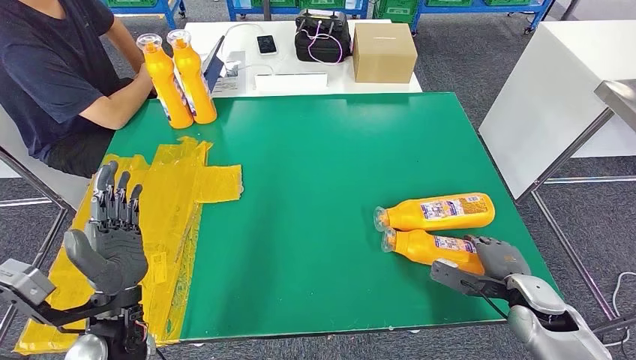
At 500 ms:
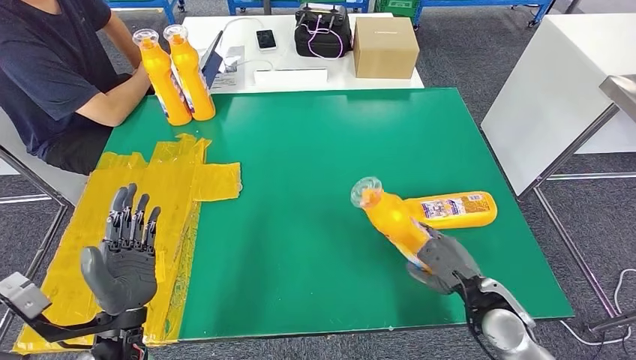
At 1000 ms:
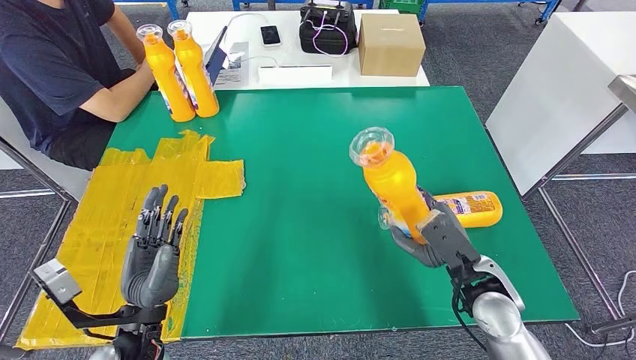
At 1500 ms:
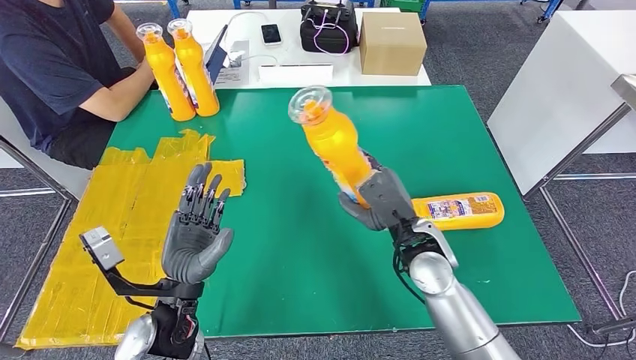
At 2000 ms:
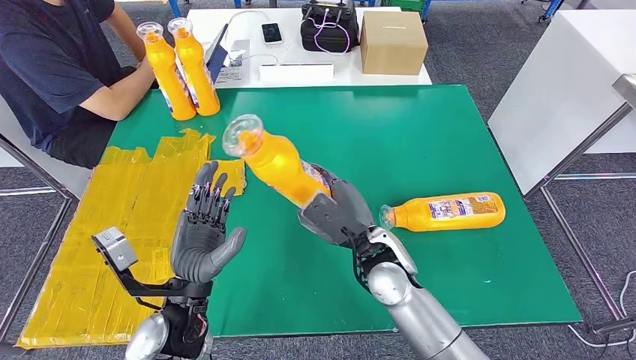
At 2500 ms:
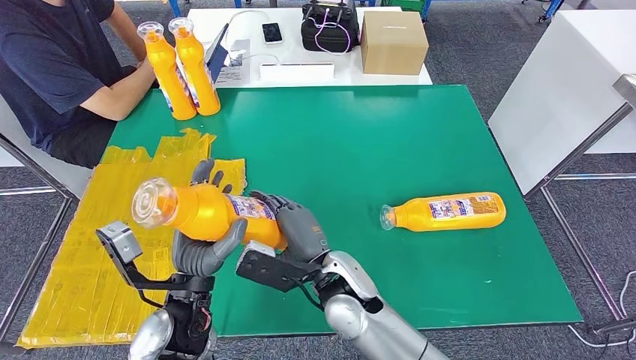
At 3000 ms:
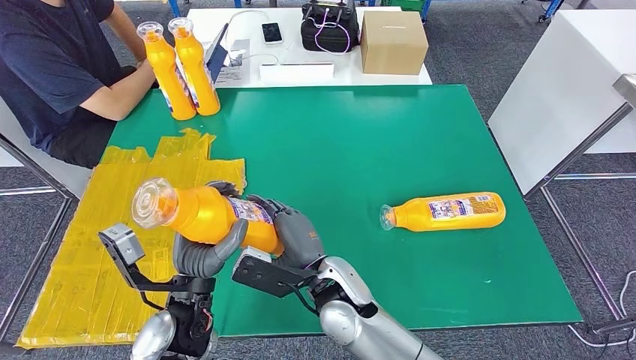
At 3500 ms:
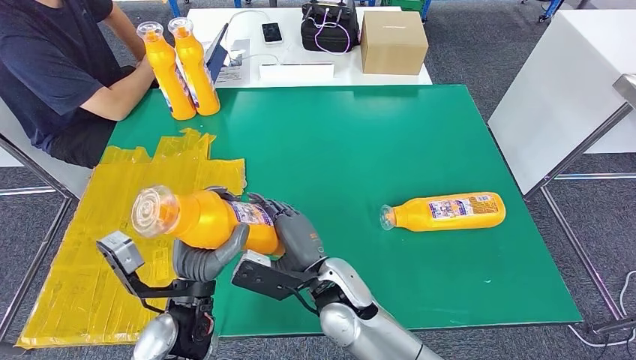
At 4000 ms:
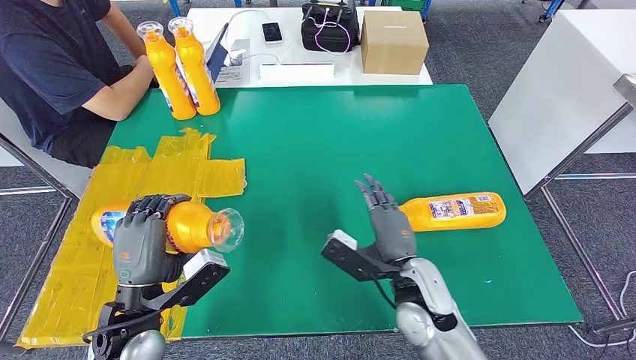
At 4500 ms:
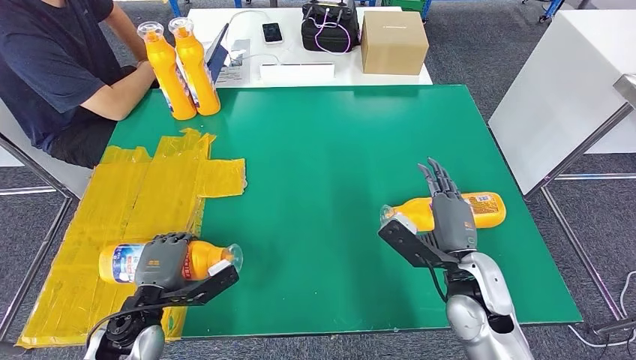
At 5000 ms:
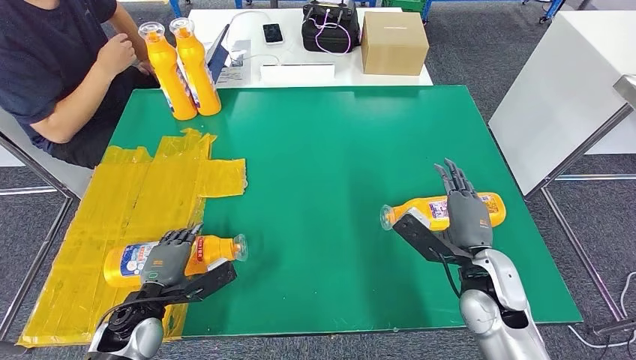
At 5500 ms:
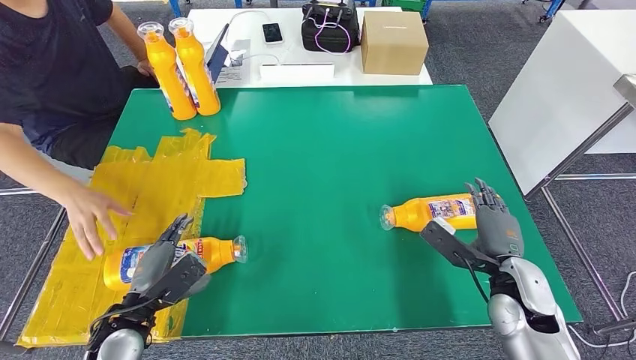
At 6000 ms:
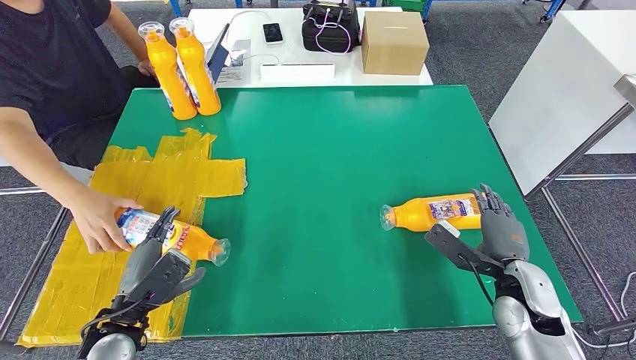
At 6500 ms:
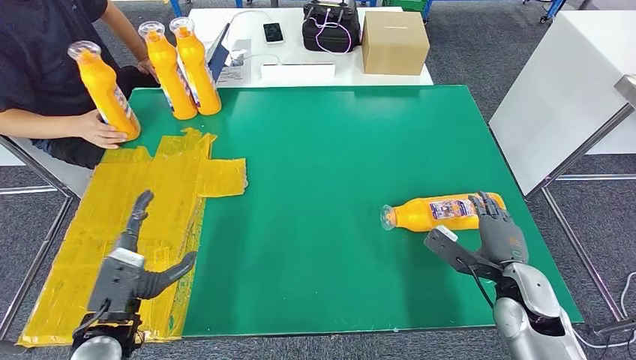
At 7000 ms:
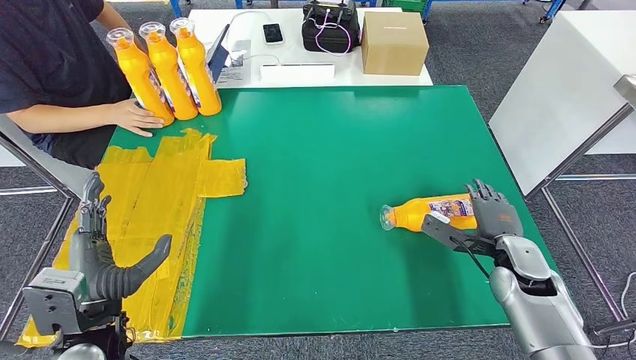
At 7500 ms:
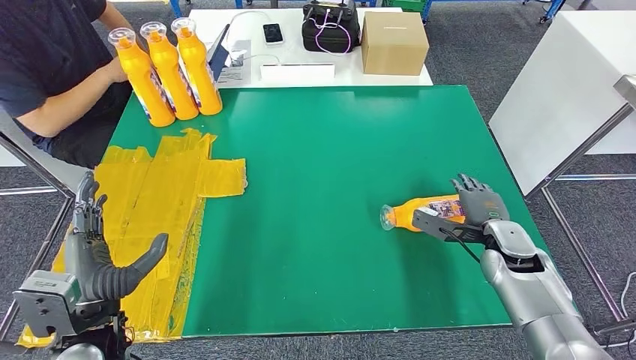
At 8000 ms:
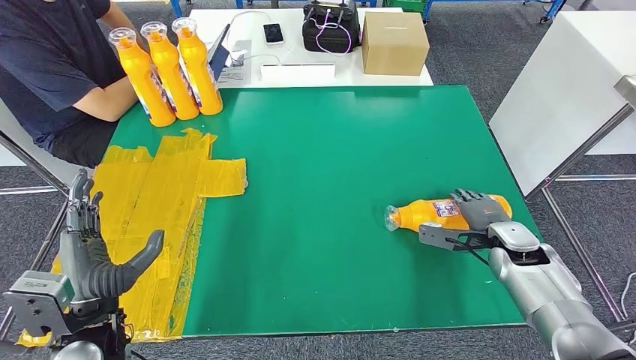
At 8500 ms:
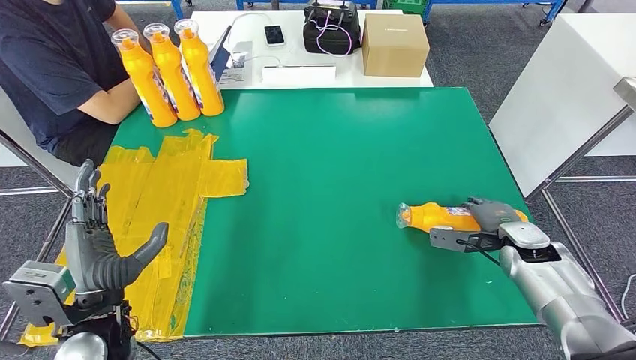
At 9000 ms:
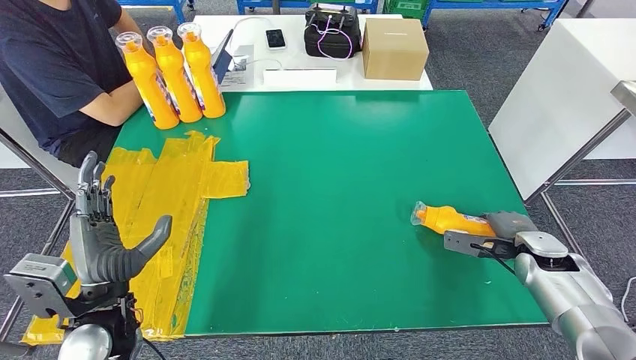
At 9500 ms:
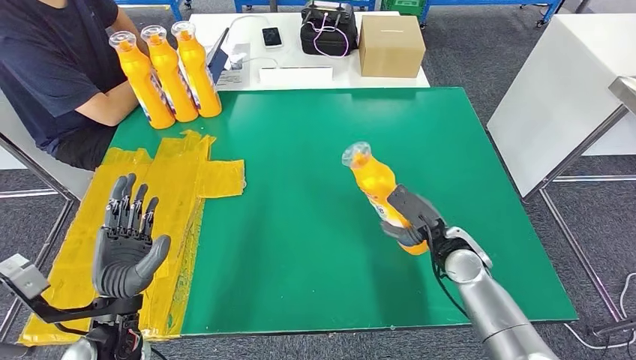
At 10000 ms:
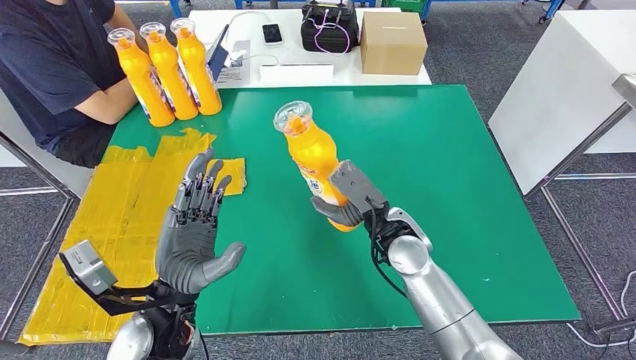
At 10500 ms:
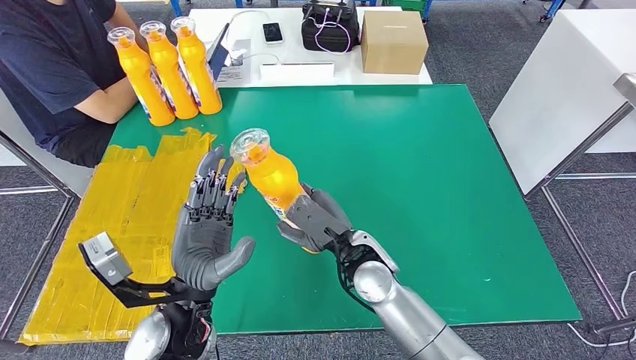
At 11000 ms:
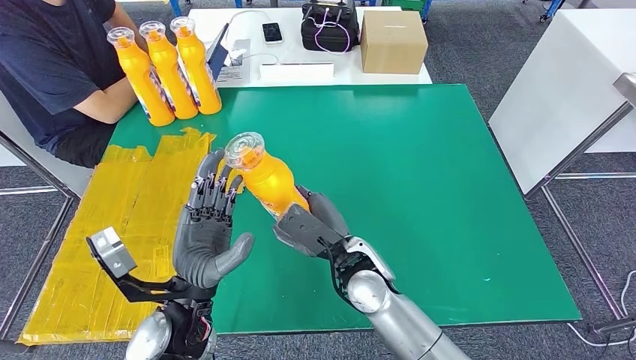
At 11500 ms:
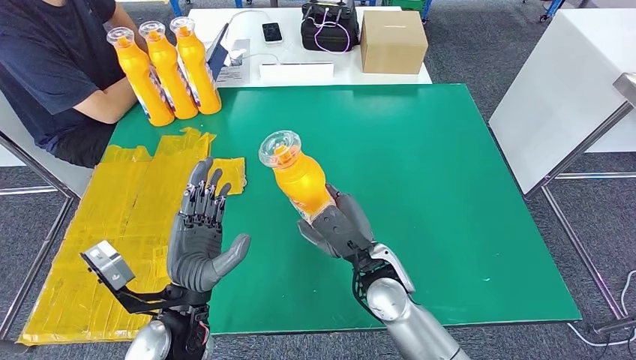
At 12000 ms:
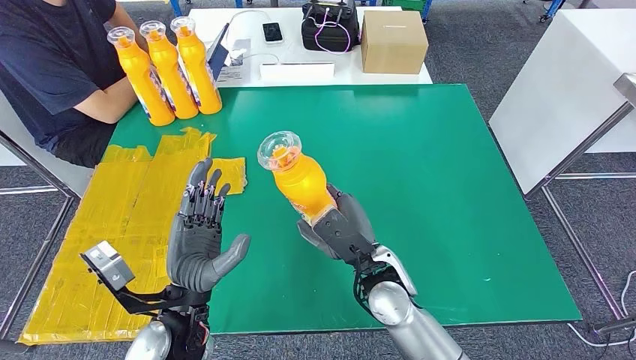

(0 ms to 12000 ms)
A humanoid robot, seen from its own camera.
Step, 1500 ms - 5500 ms: Flip the bottle to face forward.
Step, 6500 ms - 10000 ms: Pick up the bottle from the table.
2000 ms - 4000 ms: The right hand shifts approximately 5 cm to the right; the left hand moves to the left, roughly 5 cm.
10000 ms - 12000 ms: The right hand heads backward, covering roughly 5 cm.

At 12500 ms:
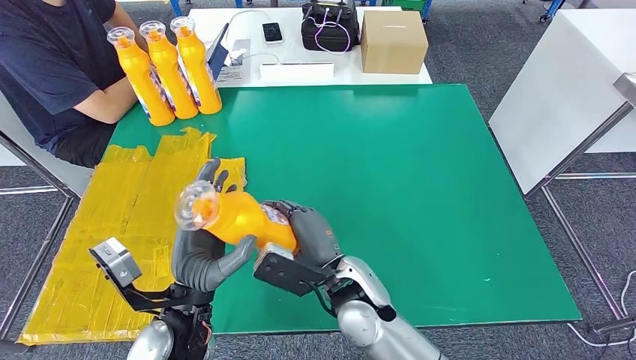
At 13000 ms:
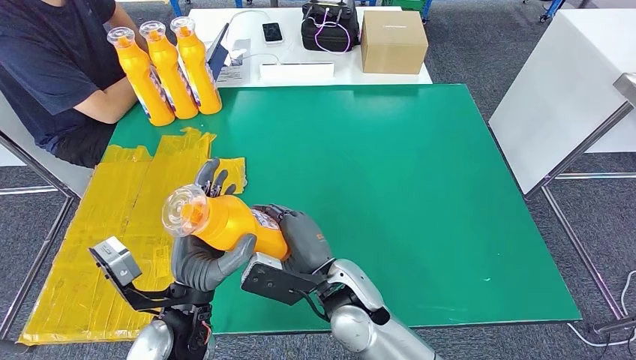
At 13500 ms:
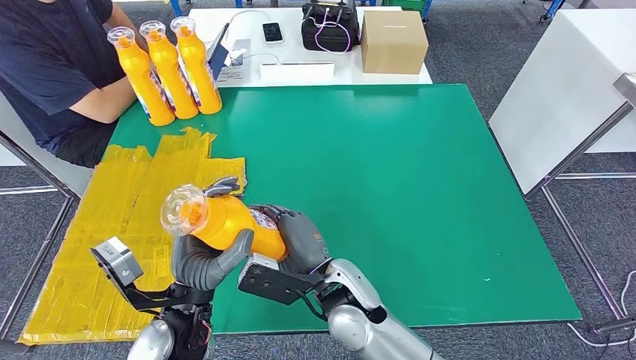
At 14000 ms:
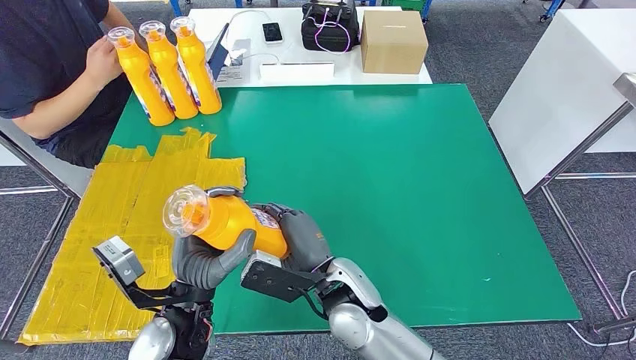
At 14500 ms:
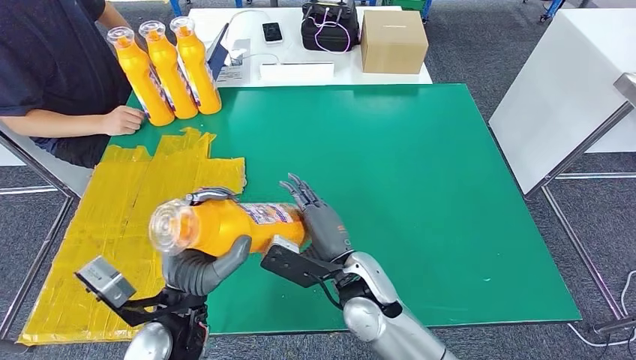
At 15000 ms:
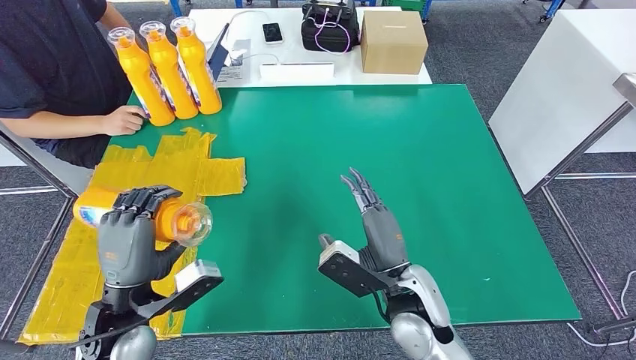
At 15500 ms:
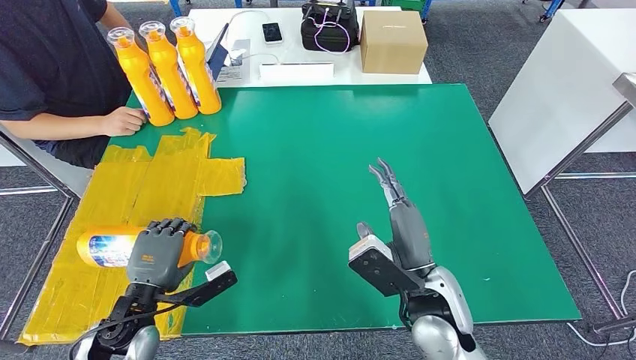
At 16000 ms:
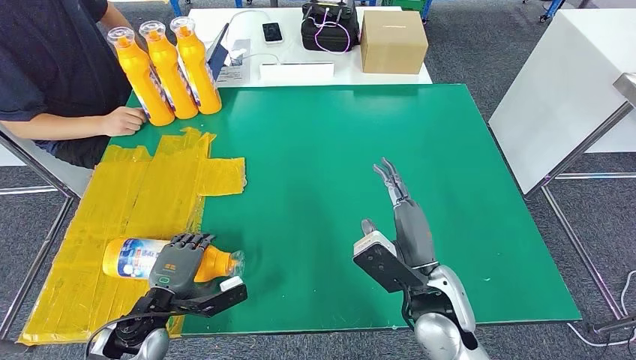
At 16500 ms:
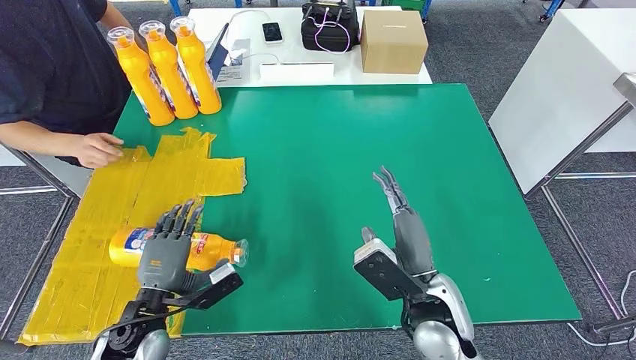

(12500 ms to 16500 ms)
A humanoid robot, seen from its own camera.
Step, 12500 ms - 16500 ms: Flip the bottle to face forward.
12500 ms - 14500 ms: The hands make only small movements.
14500 ms - 16500 ms: The right hand shifts about 10 cm to the right. Meanwhile the left hand goes some 15 cm to the left and downward.
